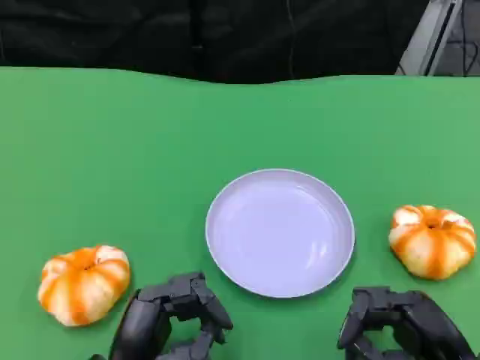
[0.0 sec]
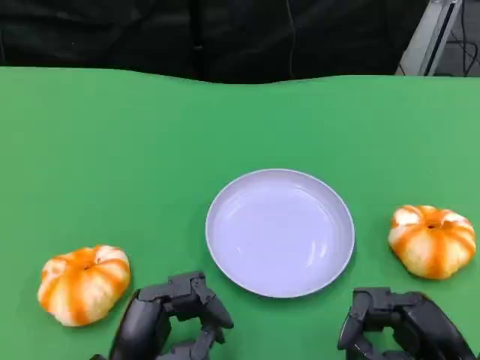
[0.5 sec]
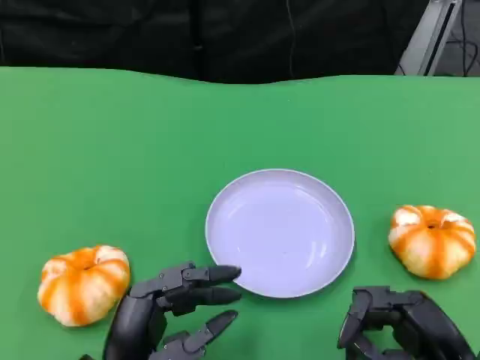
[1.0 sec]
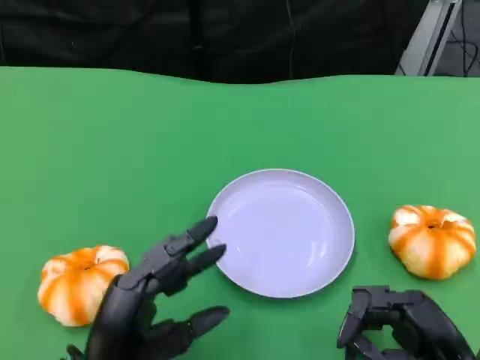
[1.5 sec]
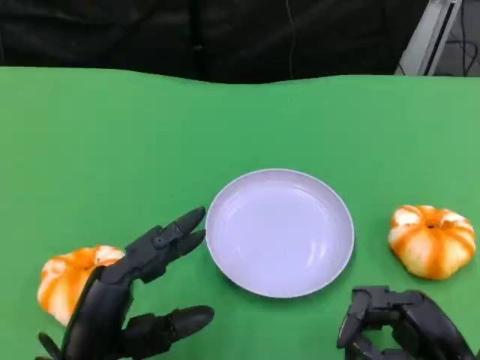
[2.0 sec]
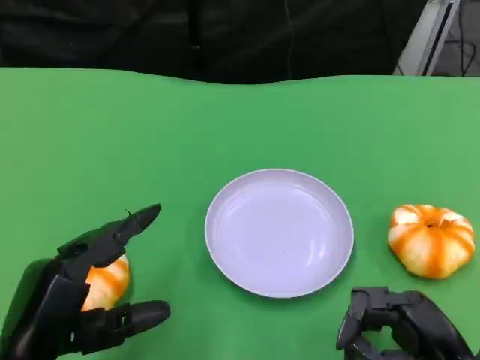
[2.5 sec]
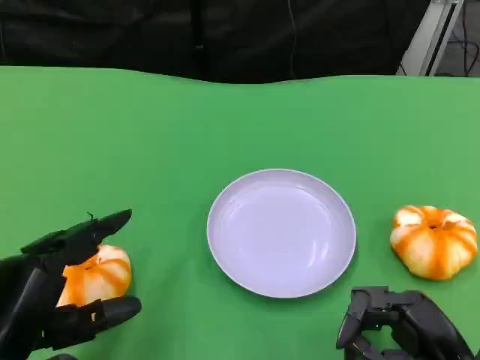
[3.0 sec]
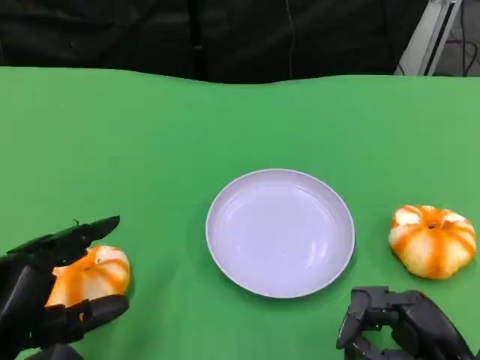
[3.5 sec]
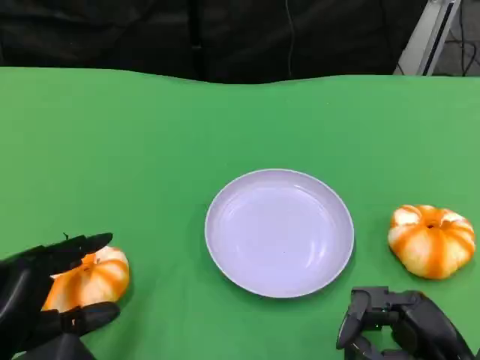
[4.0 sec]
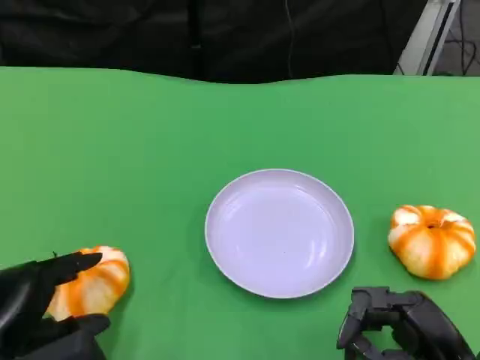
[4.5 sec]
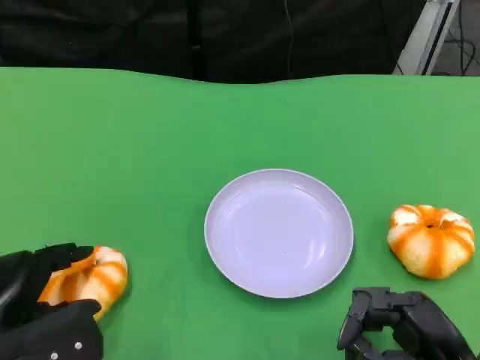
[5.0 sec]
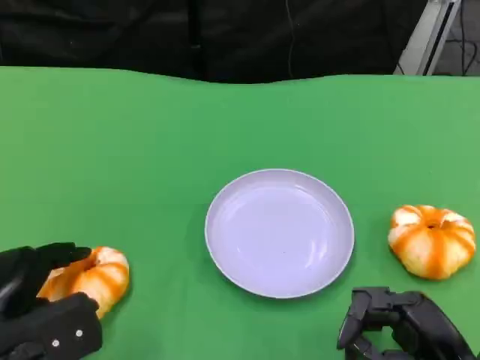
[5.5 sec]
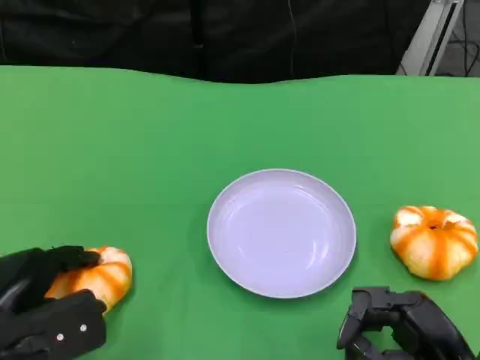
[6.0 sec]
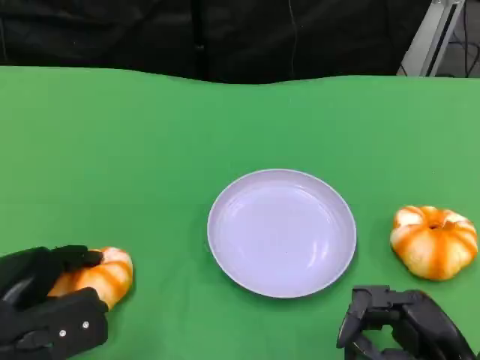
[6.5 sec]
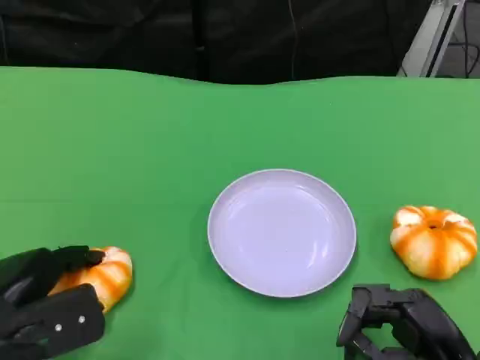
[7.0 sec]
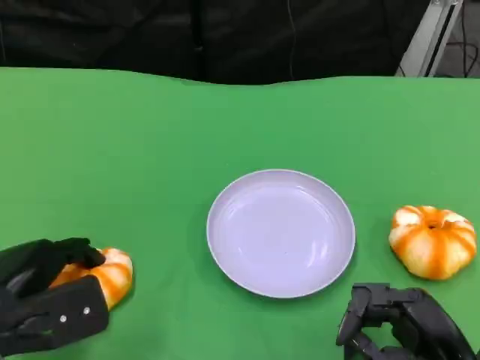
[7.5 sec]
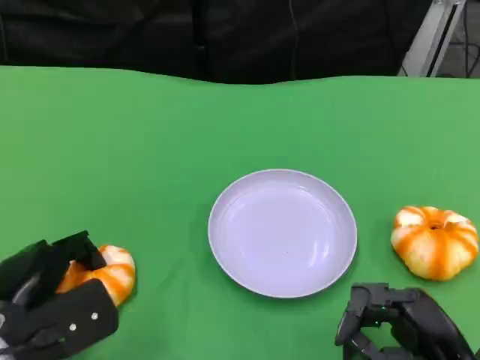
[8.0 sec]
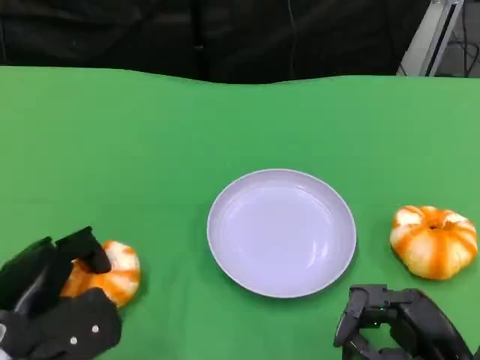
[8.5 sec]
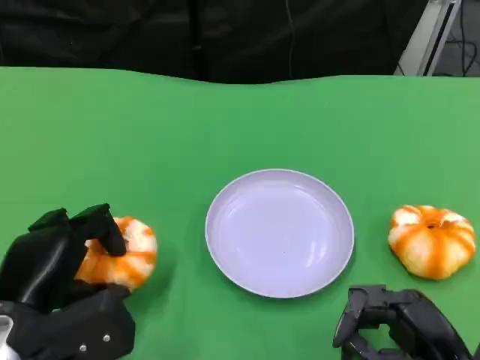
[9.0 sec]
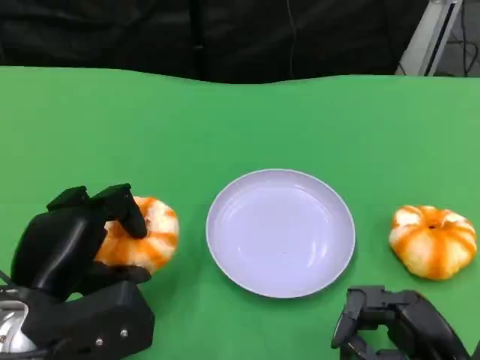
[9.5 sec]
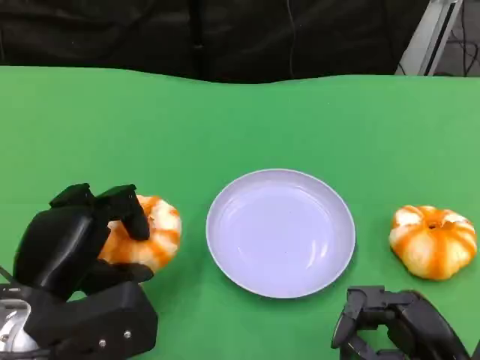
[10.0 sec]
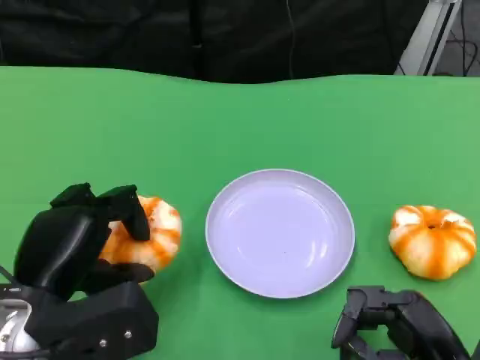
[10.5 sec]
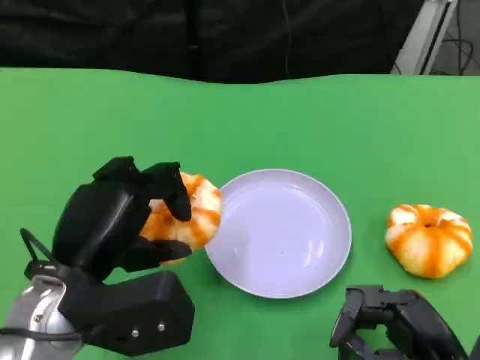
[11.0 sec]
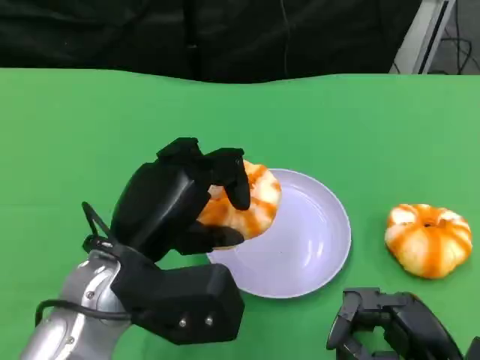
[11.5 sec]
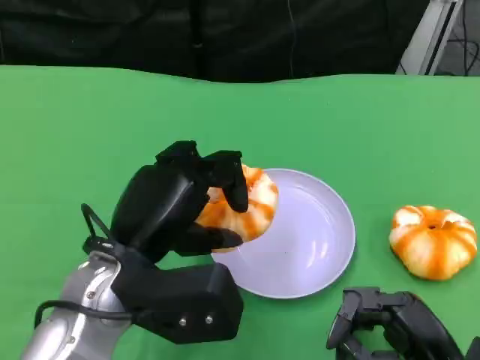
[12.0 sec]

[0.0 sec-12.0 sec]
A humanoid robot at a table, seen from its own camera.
Task of the whole recording: Grasp the bread from the table and place it into the plate.
0.0 sec to 2.0 sec: The left hand ends up about 5 cm from where it was.
2.0 sec to 4.0 sec: The left hand is displaced to the left by roughly 5 cm.
4.0 sec to 6.0 sec: The left hand goes about 5 cm forward.
6.0 sec to 8.0 sec: The hands move only a little.
8.0 sec to 10.0 sec: The left hand heads upward, covering some 5 cm.
10.0 sec to 12.0 sec: The left hand travels to the right by approximately 5 cm.

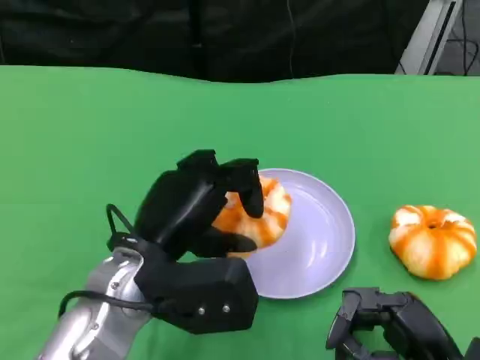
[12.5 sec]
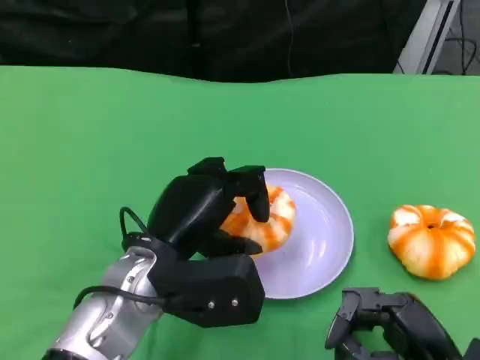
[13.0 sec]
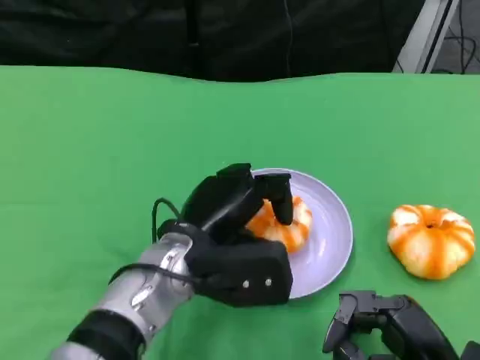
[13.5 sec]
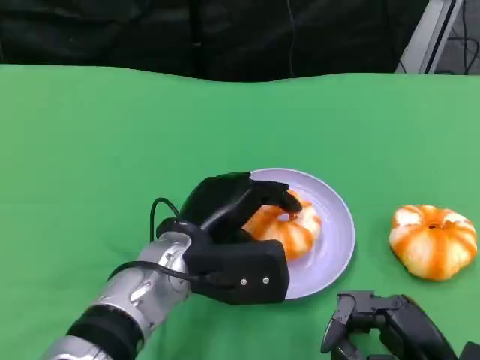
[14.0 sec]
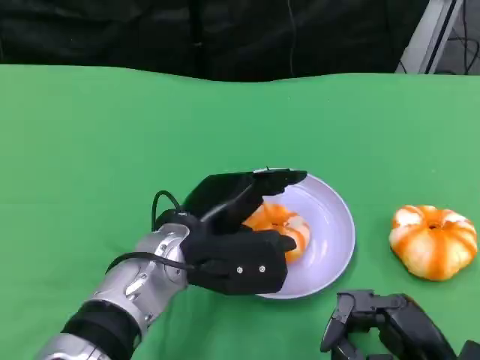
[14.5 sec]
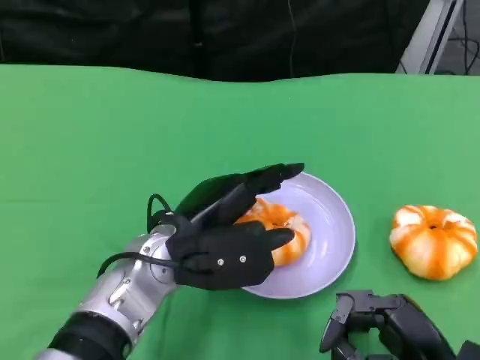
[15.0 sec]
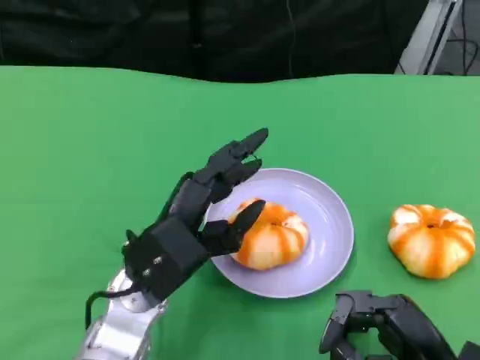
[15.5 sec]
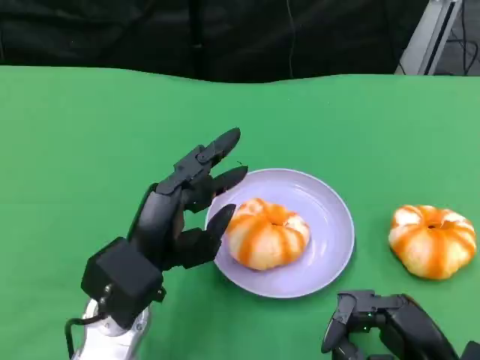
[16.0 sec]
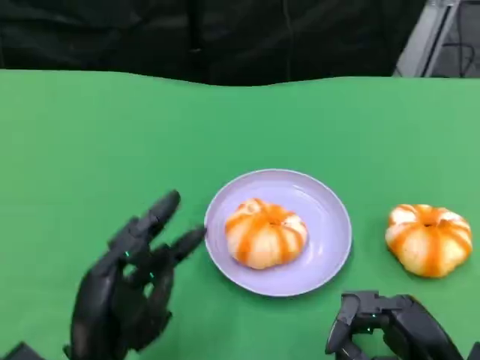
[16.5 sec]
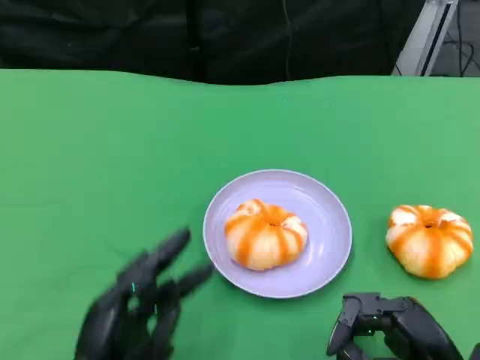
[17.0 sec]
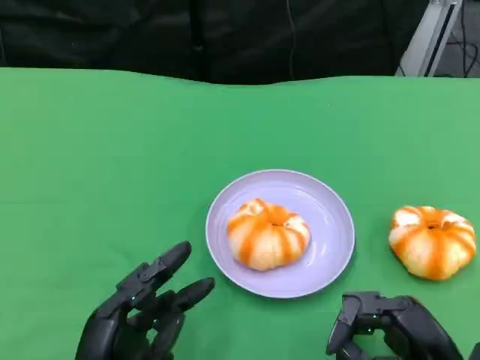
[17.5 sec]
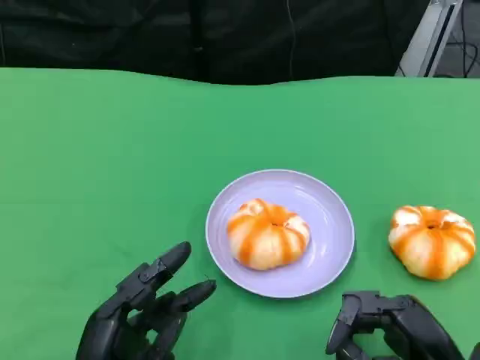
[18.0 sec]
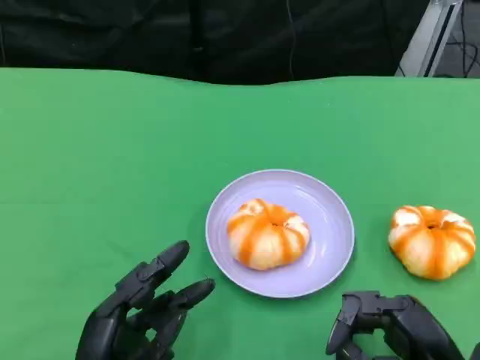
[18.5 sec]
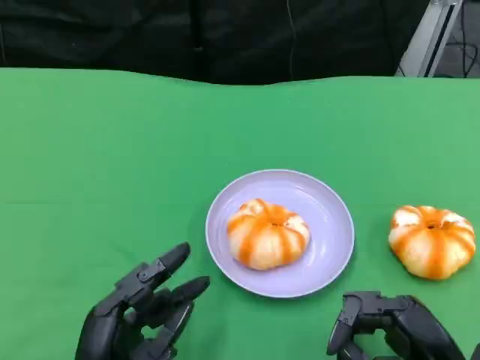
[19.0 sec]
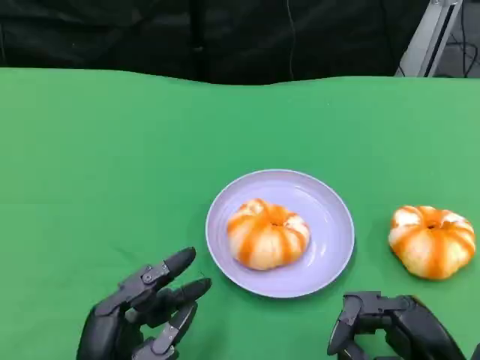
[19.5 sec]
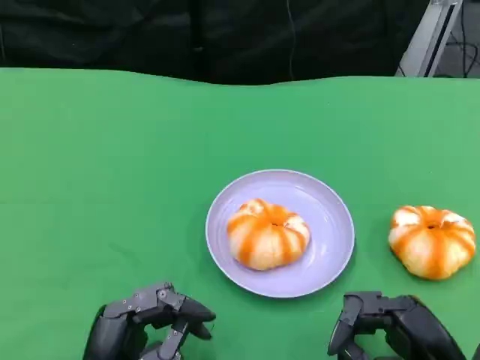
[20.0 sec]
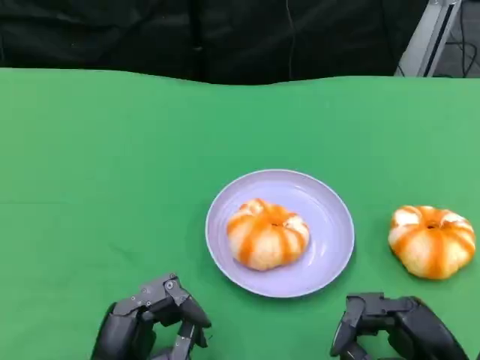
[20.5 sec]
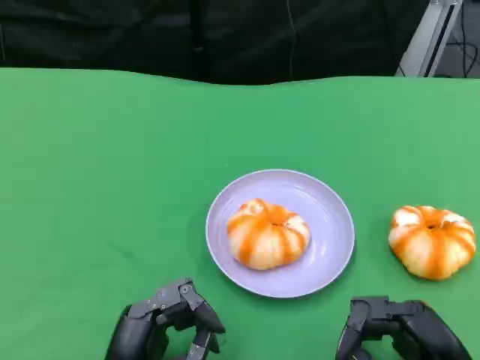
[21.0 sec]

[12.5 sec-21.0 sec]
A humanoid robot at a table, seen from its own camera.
Task of the whole recording: Grasp the bread from the table and place it into the plate.
12.5 sec to 14.5 sec: The left hand moves approximately 5 cm.
14.5 sec to 16.5 sec: The left hand heads backward and to the left, covering about 15 cm.
16.5 sec to 21.0 sec: There are only small adjustments of the hands.

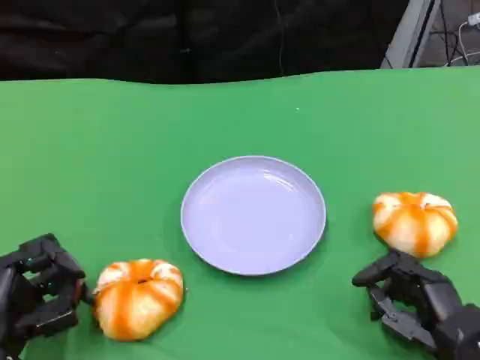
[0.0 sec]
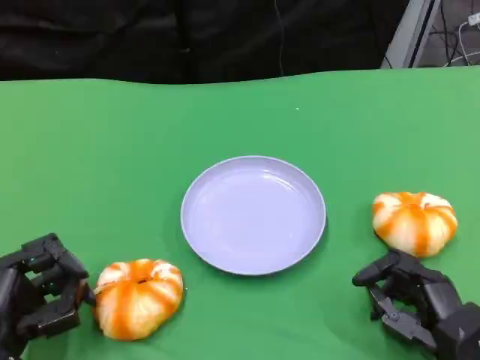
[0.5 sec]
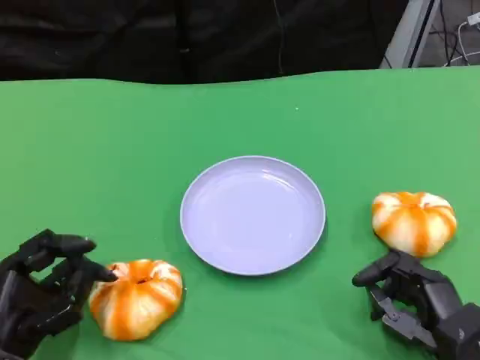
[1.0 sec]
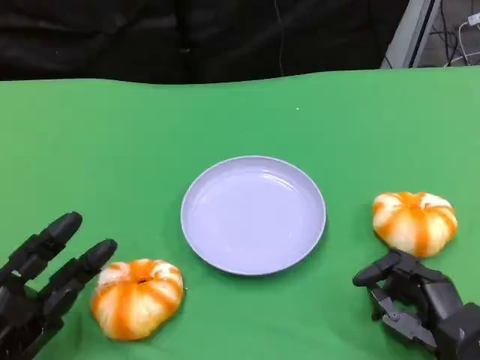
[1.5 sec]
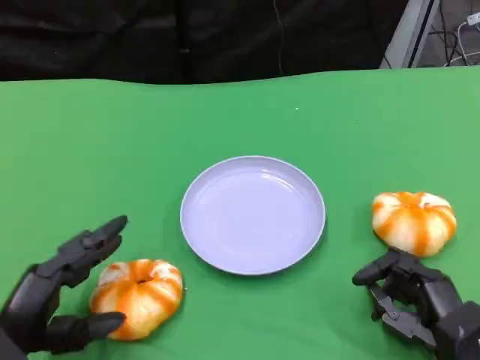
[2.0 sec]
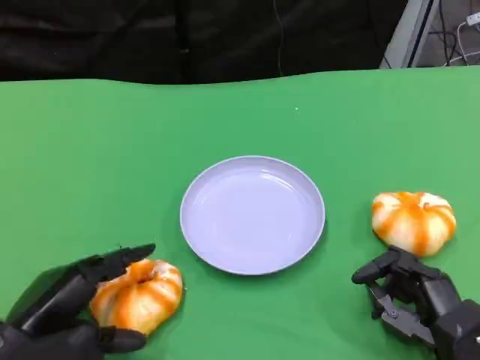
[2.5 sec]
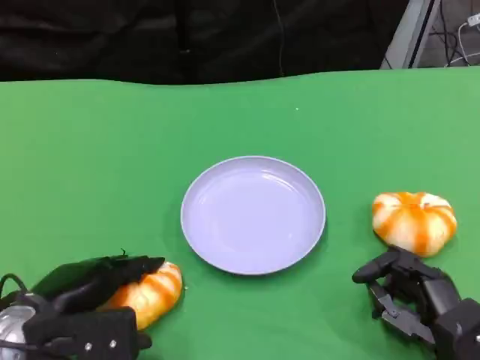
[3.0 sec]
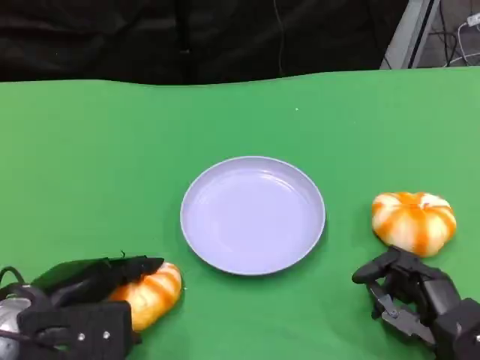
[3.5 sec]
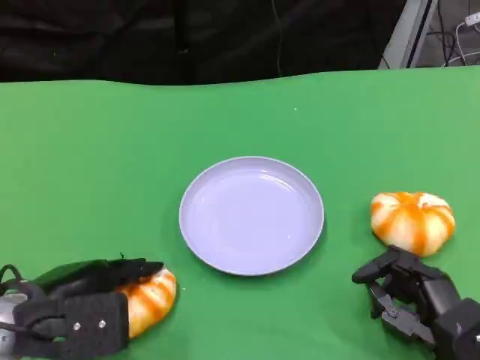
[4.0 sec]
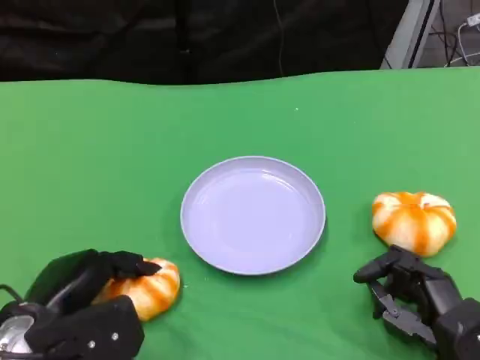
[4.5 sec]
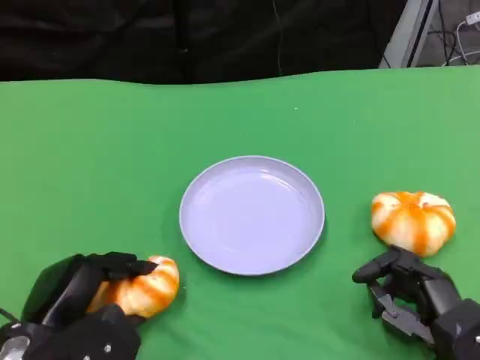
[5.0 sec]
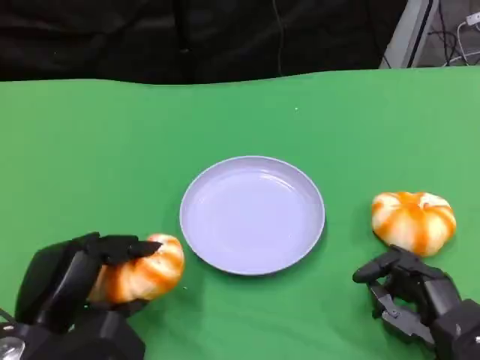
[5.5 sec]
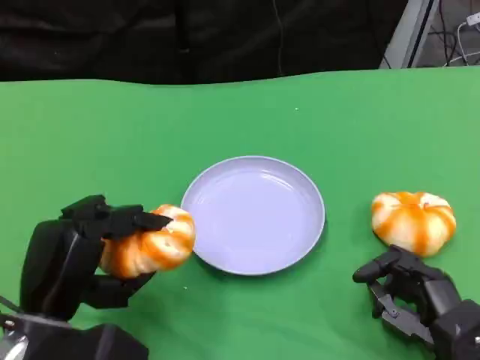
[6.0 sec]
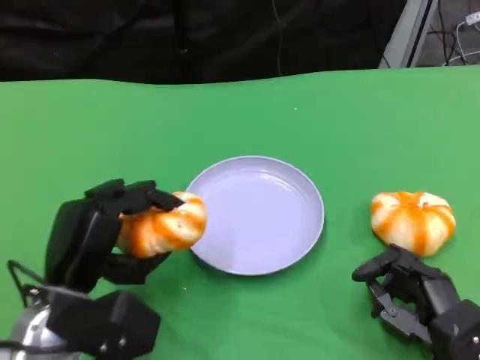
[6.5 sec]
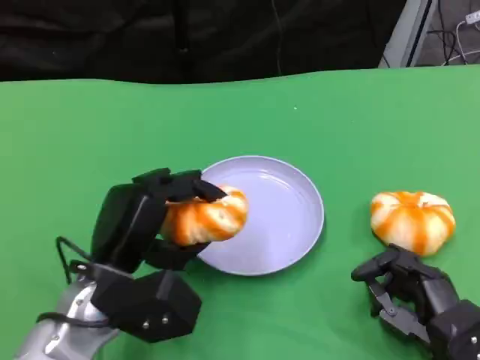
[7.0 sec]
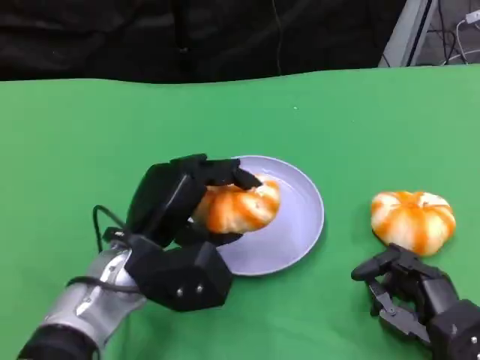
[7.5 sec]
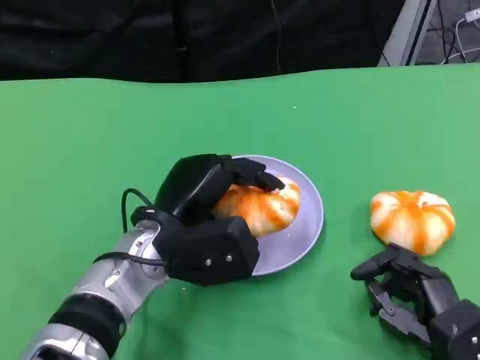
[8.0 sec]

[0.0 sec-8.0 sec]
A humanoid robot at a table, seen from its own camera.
Task of the whole recording: Grasp the bread from the table and place it into the plate.
2.0 sec to 4.0 sec: The left hand changes place by about 5 cm.
6.0 sec to 8.0 sec: The left hand is displaced to the right and forward by approximately 15 cm.
